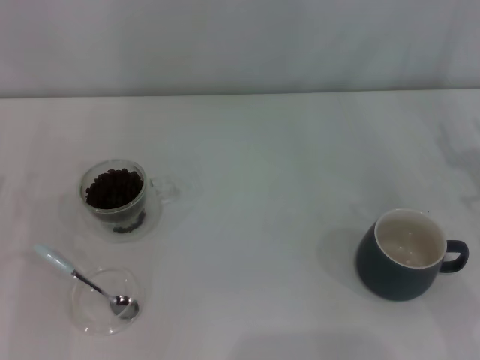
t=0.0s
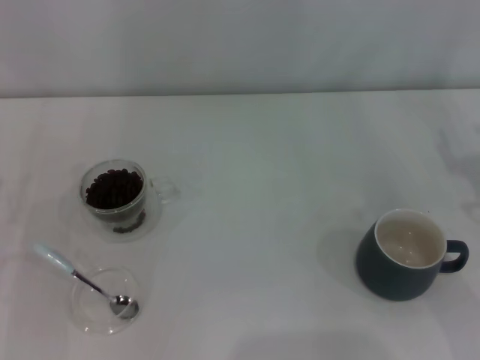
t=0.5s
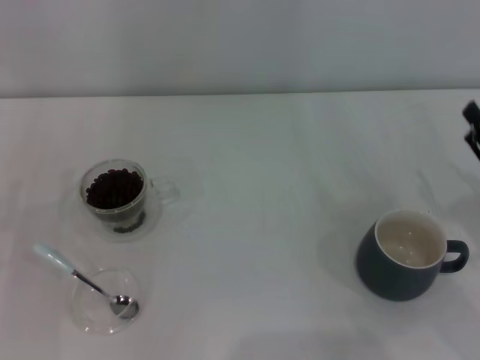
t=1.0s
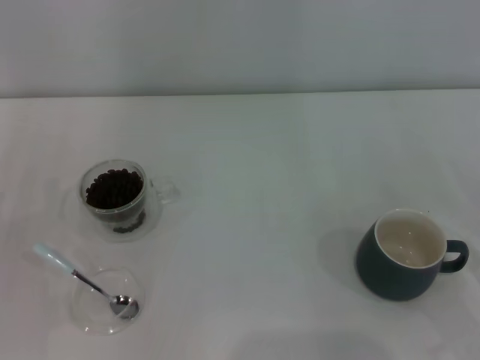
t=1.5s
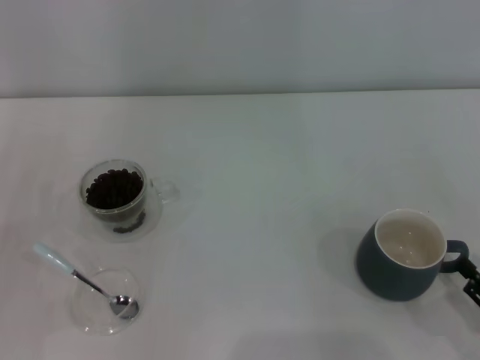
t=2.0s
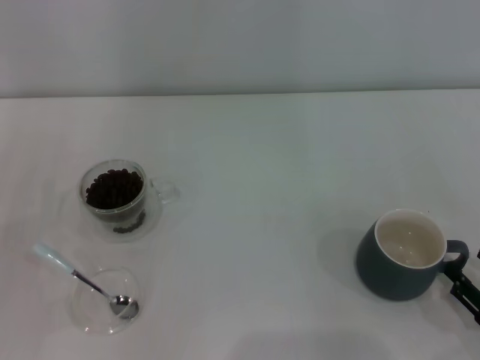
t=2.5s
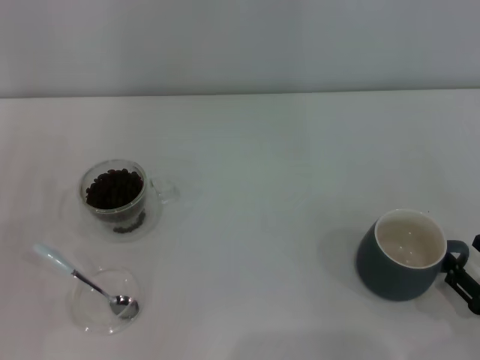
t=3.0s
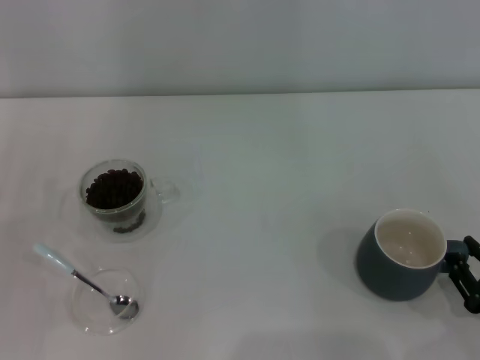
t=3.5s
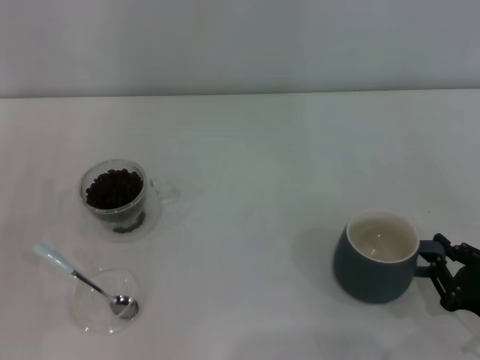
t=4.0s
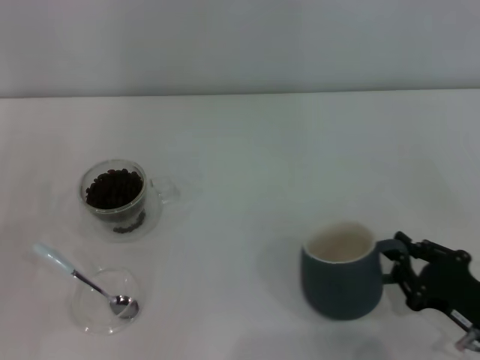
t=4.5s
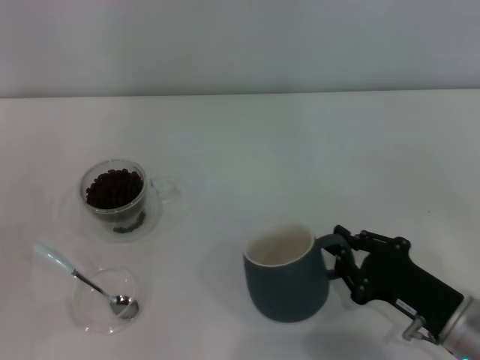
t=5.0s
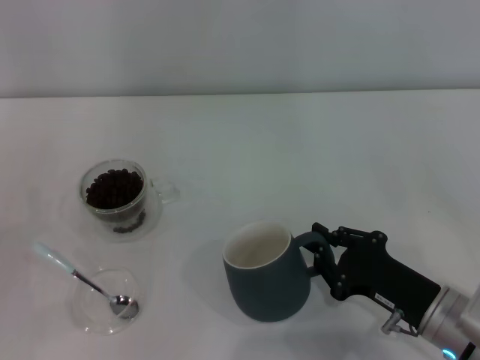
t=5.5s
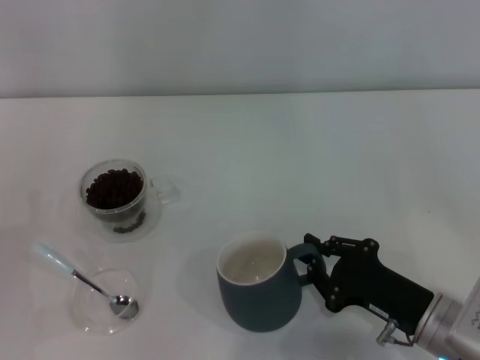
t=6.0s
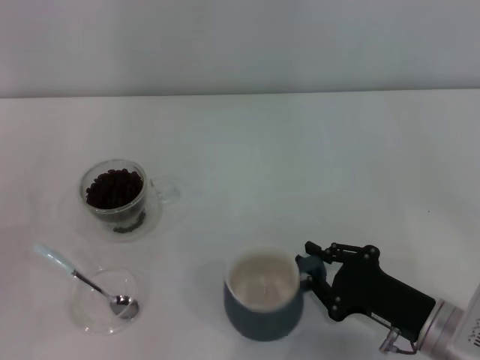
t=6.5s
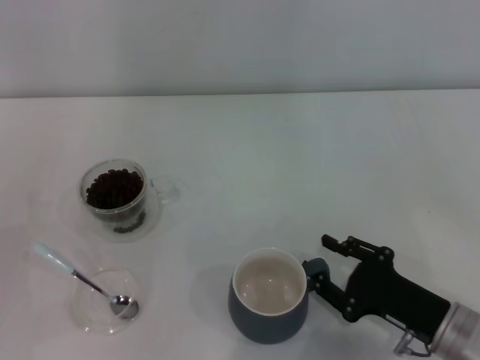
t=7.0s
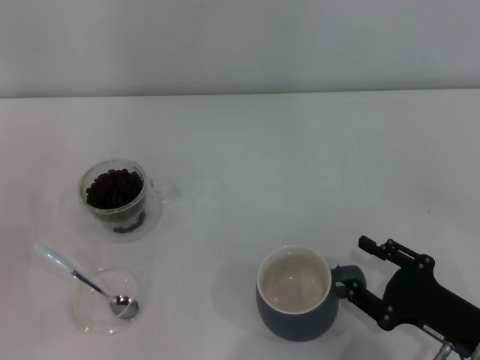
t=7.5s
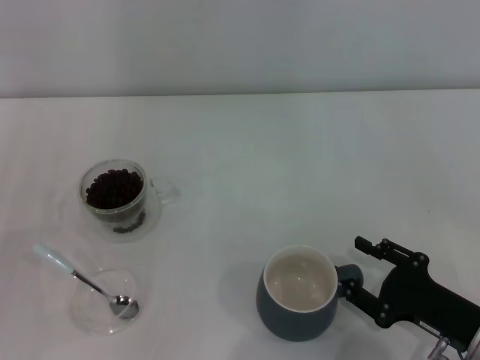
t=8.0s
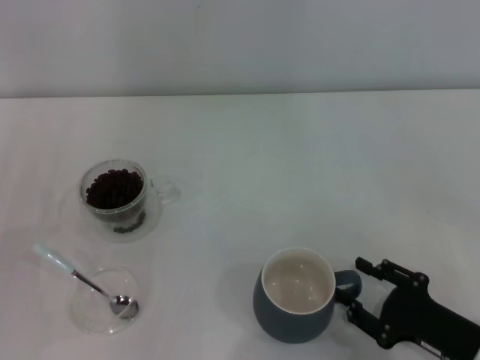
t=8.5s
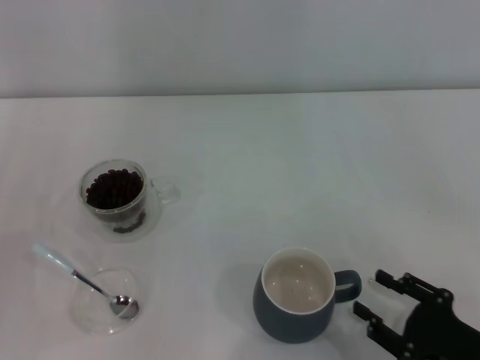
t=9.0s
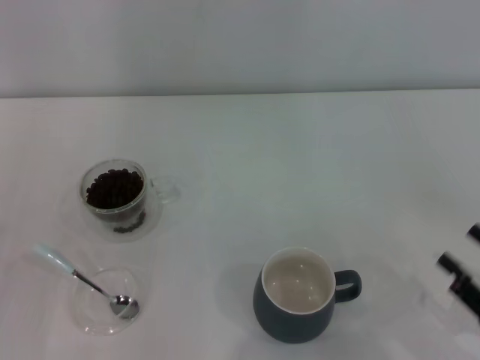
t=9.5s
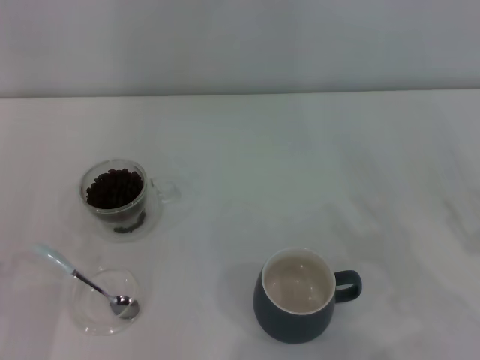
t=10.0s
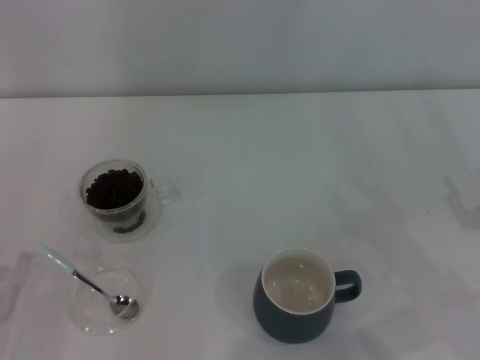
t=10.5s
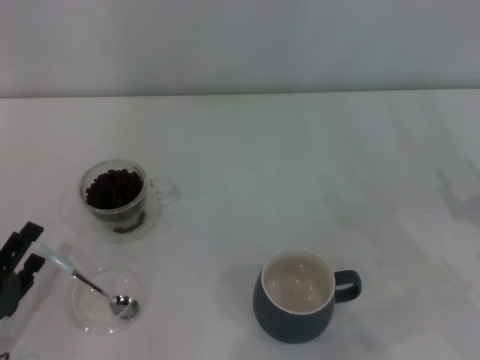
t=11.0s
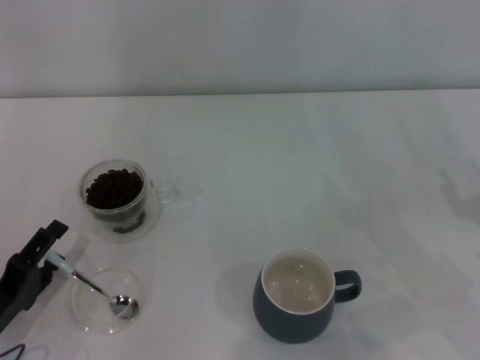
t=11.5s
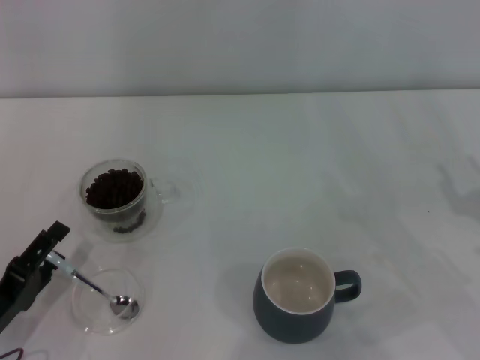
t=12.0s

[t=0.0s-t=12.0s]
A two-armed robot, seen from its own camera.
Task of the whole recording: Use a blue spoon to take out the coffee beans from the glass and pour them into the gray cup.
Step, t=0.0s to t=8.5s: Move the cup to the center of view with the left gripper.
t=0.0s to t=2.0s: The right gripper heads backward and downward, covering roughly 20 cm.
t=2.0s to t=4.0s: The right gripper closes.
t=4.0s to t=6.0s: The right gripper moves to the left, approximately 10 cm.
t=6.0s to t=8.0s: The right gripper changes place by some 5 cm, and opens its fingers.
t=8.0s to t=10.0s: The right gripper travels to the right and upward by approximately 10 cm.
t=10.0s to t=12.0s: The left gripper ends up some 5 cm from where it was.

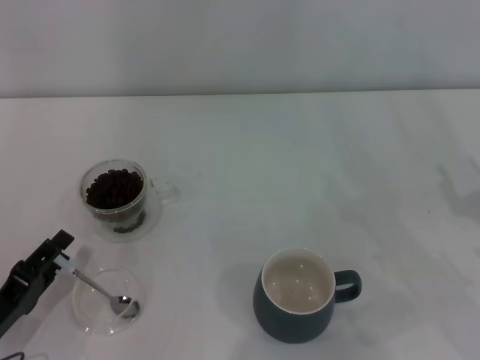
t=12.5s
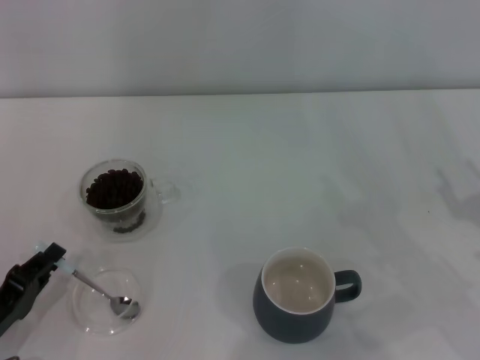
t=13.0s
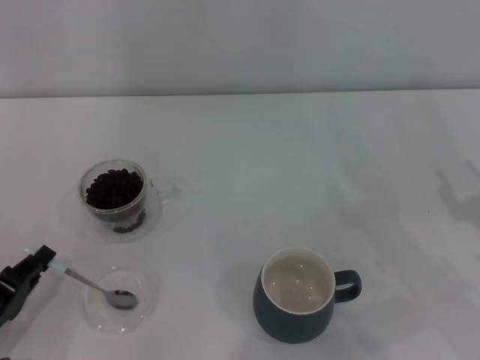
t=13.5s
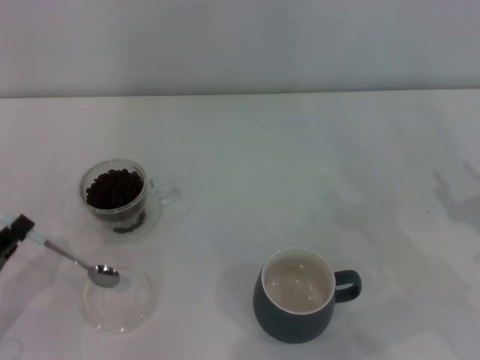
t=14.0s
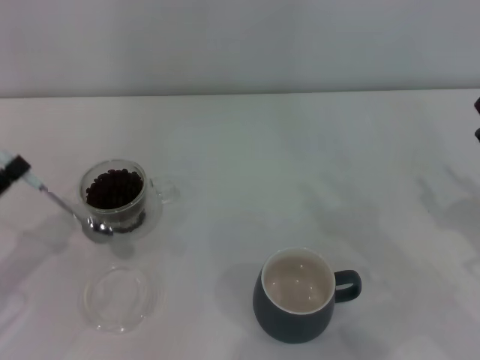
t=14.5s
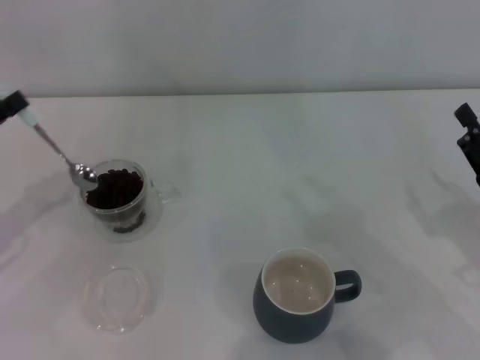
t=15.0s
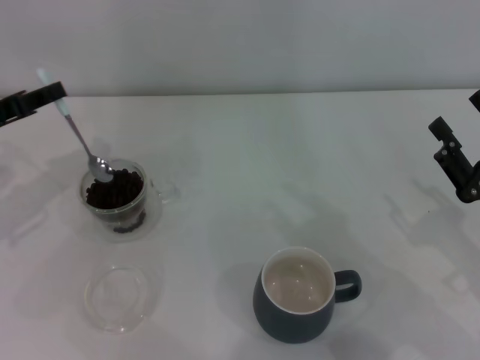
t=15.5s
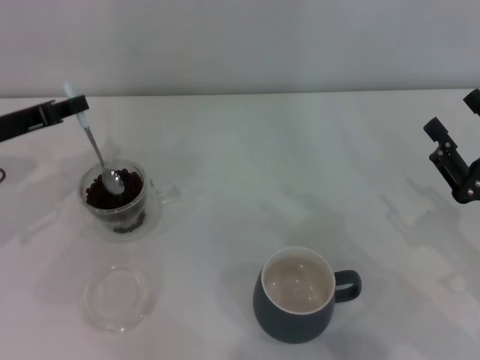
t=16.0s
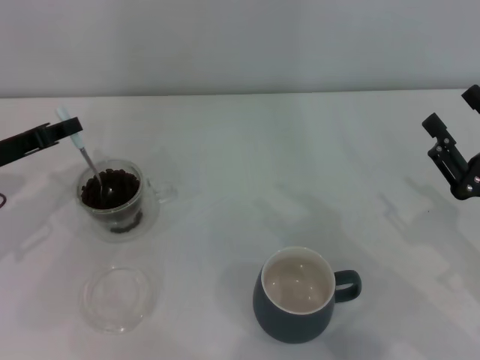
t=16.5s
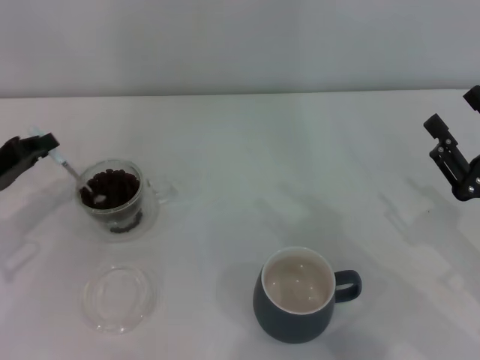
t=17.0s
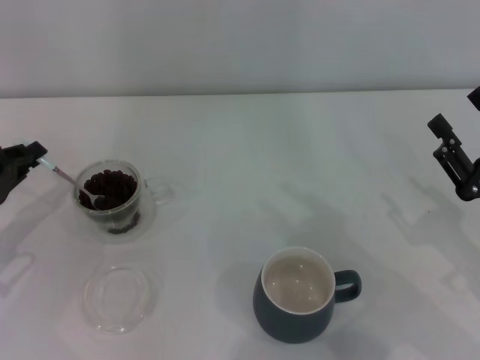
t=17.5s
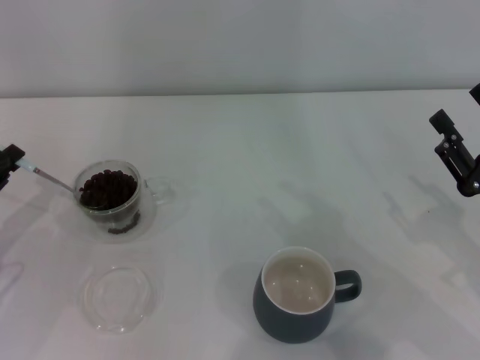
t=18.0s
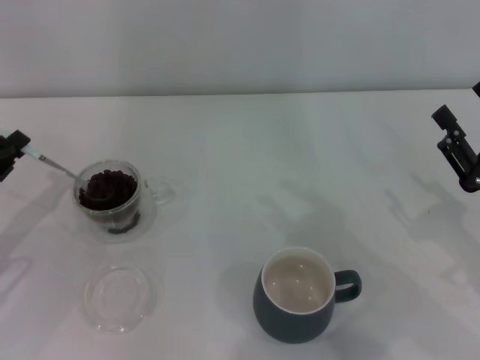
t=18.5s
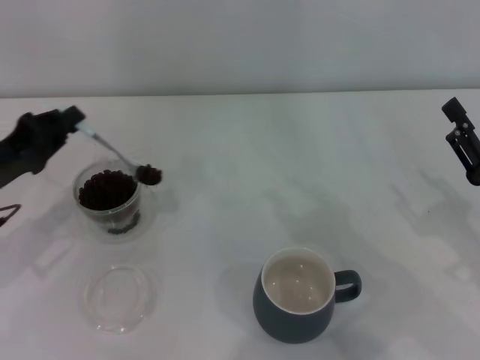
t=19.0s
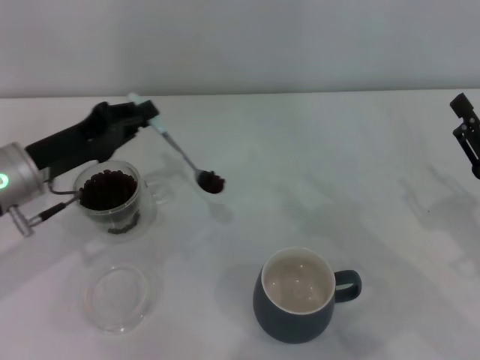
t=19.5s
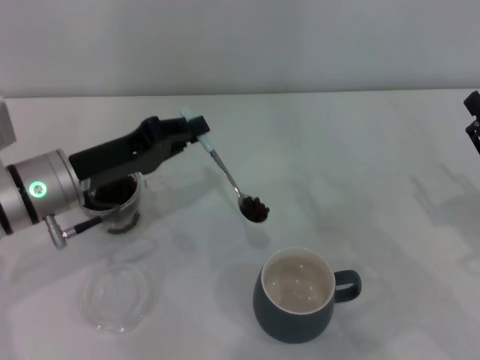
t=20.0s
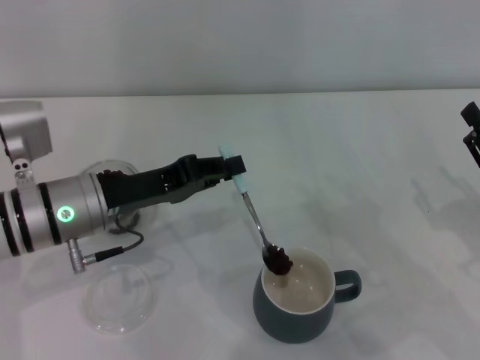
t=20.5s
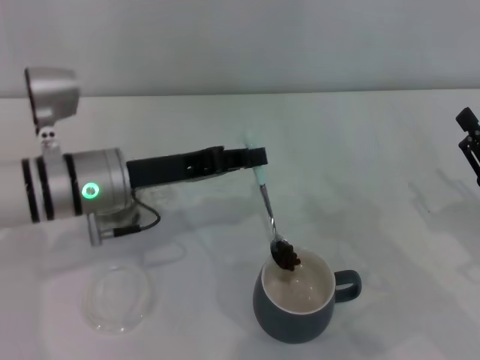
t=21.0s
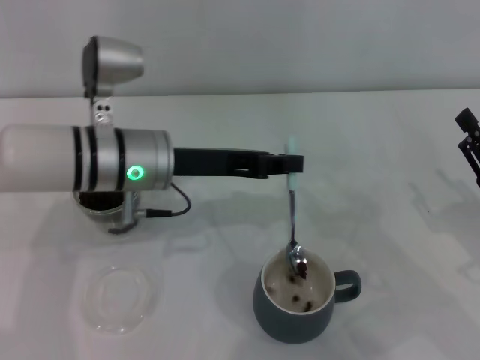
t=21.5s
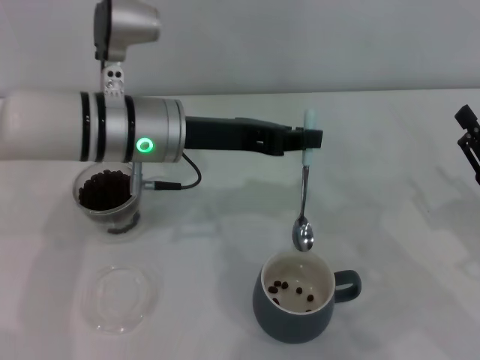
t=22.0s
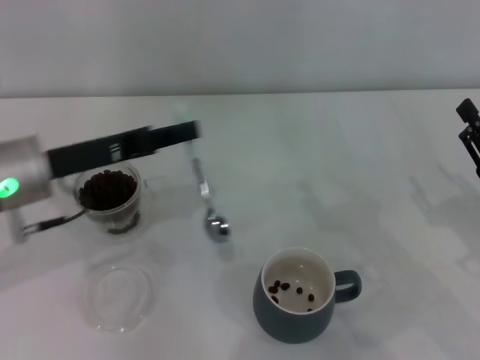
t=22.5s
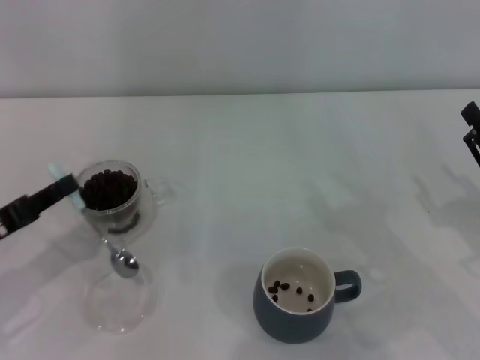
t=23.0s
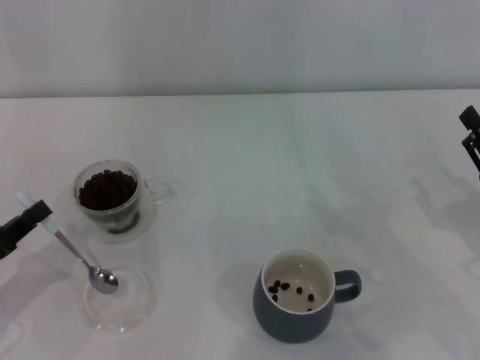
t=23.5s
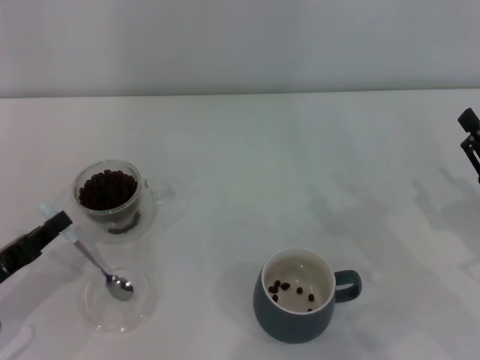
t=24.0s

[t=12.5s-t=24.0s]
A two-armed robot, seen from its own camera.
Task of the whole recording: Use a blue spoon to take out the coffee beans from the glass and pour them into the gray cup.
t=12.5s to t=14.5s: The left gripper shifts about 10 cm upward and forward, and closes.
t=14.5s to t=16.5s: The left gripper heads forward, covering approximately 10 cm.
t=16.5s to t=18.5s: The left gripper moves backward, some 5 cm.
t=18.5s to t=20.0s: The left gripper heads to the right, covering roughly 15 cm.
t=20.0s to t=22.0s: The left gripper shifts about 10 cm to the right and upward.
t=22.0s to t=24.0s: The left gripper shifts about 30 cm to the left, backward and downward.

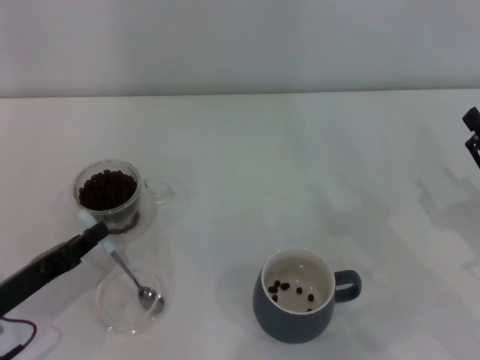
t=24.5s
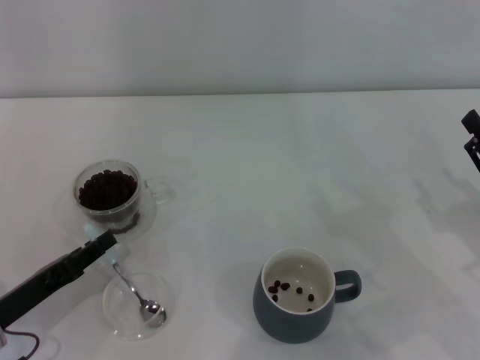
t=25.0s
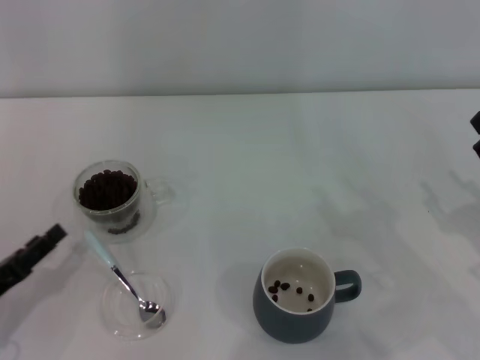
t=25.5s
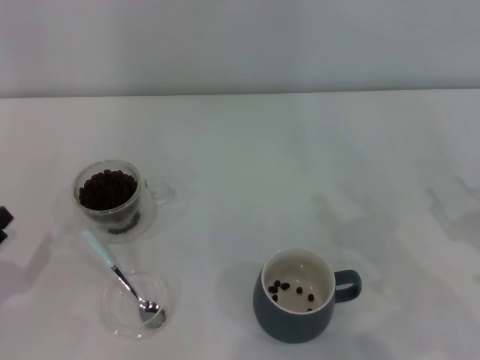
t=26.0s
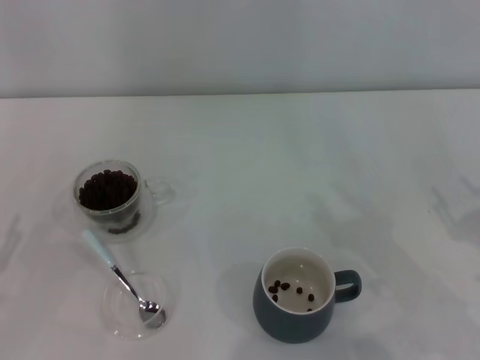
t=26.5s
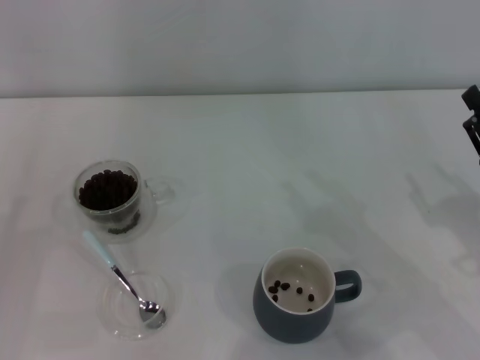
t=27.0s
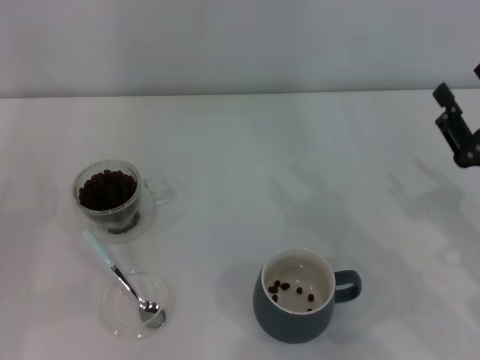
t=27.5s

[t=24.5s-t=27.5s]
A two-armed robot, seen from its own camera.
Task of the whole recording: Use a blue spoon to take out the coffee beans from the glass and pour them into the gray cup.
t=24.5s to t=26.0s: The left gripper travels to the left by about 5 cm, and opens its fingers.
t=26.0s to t=27.5s: The right gripper shifts by approximately 5 cm.
